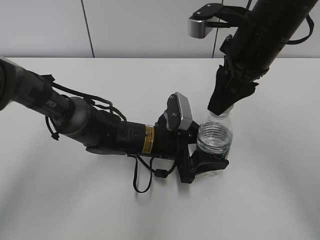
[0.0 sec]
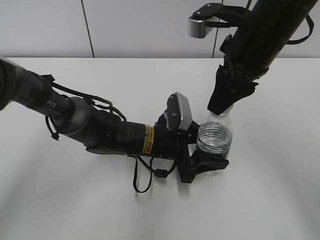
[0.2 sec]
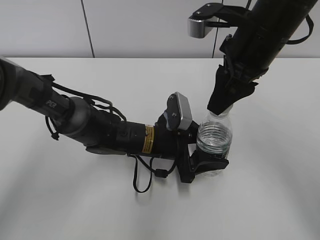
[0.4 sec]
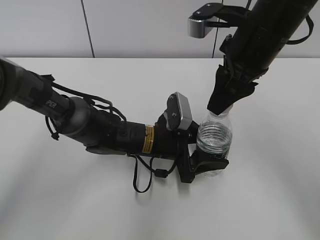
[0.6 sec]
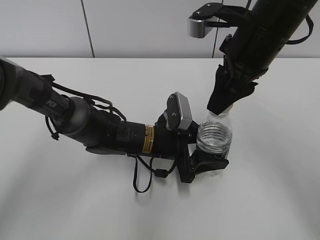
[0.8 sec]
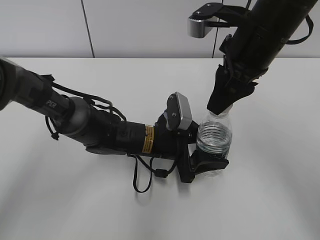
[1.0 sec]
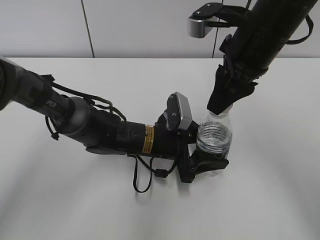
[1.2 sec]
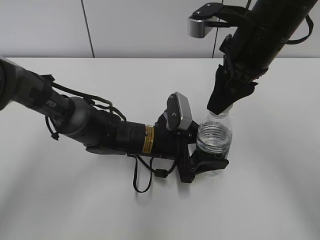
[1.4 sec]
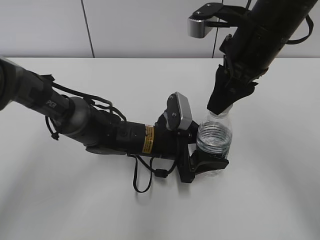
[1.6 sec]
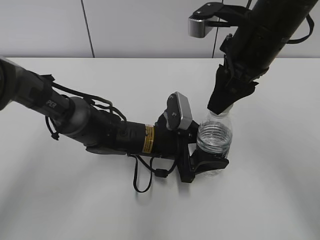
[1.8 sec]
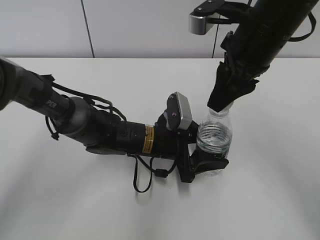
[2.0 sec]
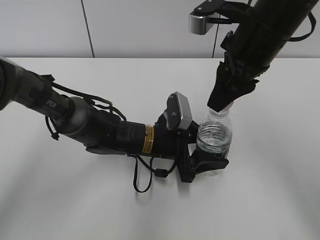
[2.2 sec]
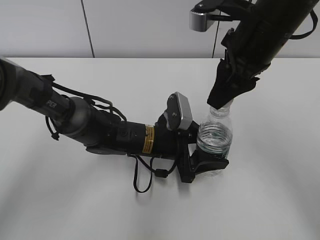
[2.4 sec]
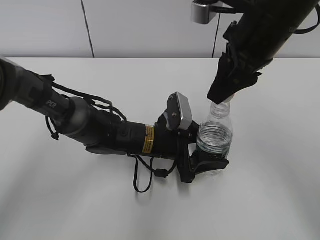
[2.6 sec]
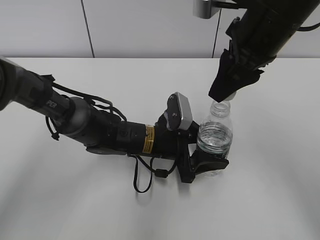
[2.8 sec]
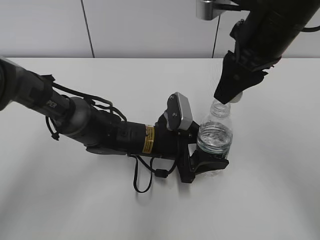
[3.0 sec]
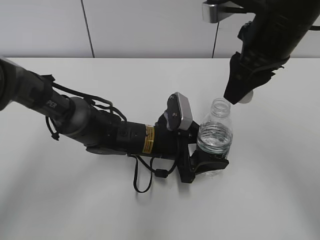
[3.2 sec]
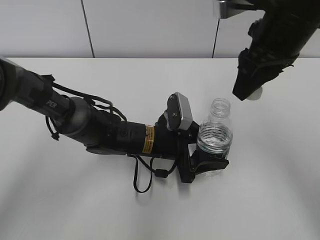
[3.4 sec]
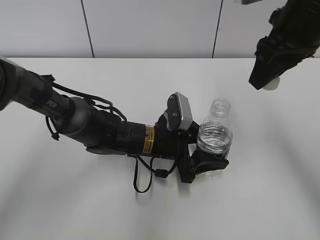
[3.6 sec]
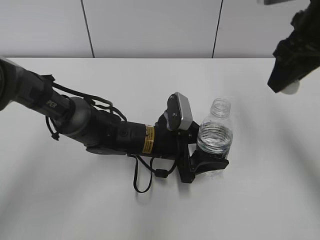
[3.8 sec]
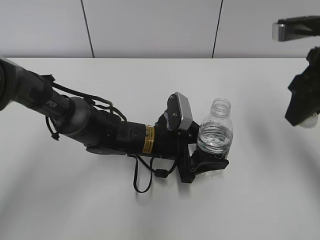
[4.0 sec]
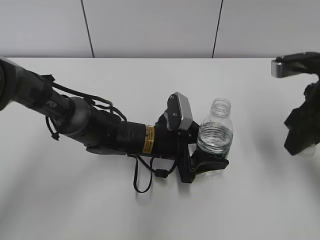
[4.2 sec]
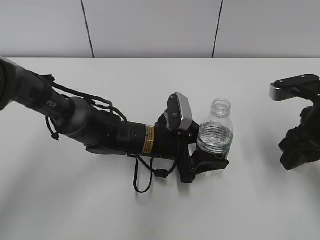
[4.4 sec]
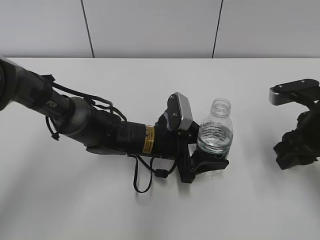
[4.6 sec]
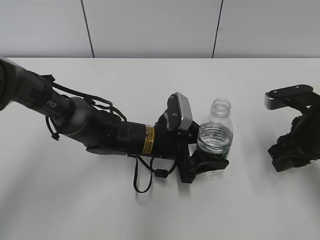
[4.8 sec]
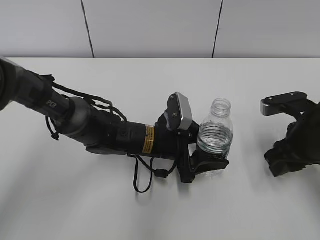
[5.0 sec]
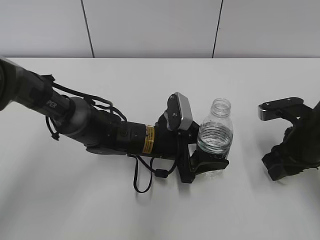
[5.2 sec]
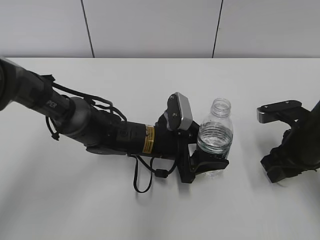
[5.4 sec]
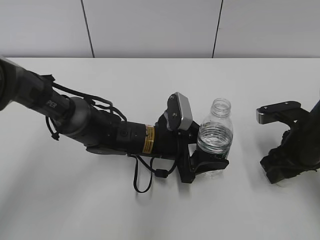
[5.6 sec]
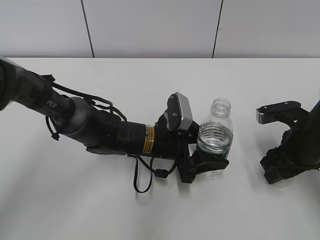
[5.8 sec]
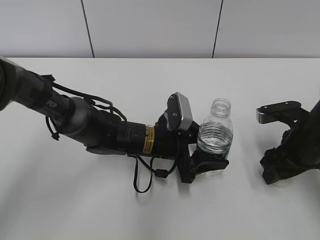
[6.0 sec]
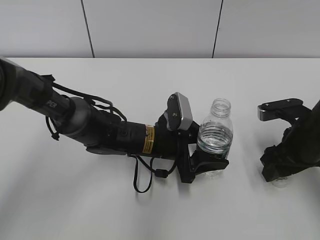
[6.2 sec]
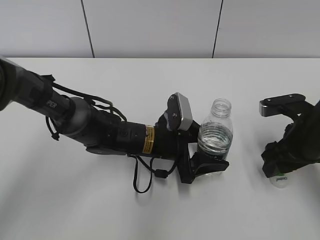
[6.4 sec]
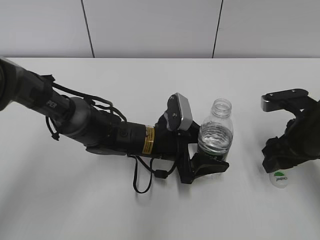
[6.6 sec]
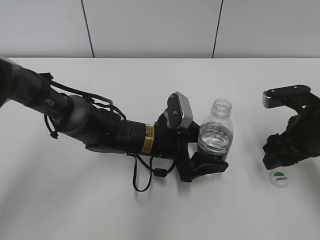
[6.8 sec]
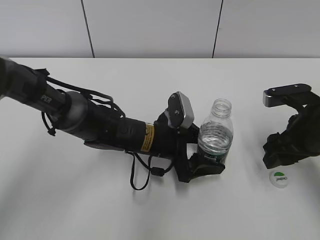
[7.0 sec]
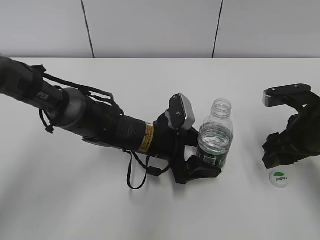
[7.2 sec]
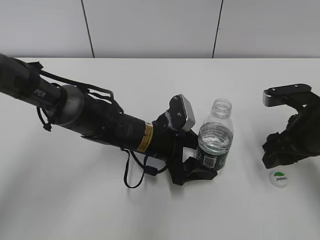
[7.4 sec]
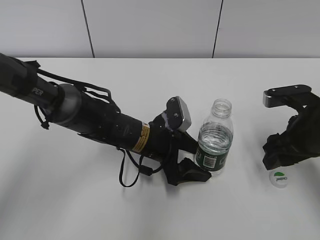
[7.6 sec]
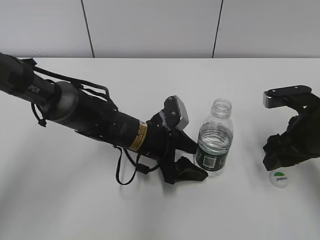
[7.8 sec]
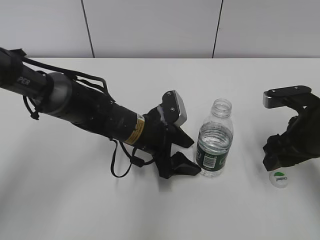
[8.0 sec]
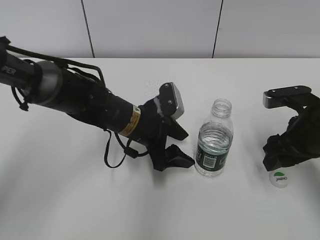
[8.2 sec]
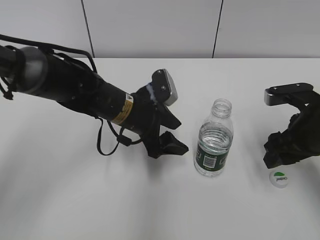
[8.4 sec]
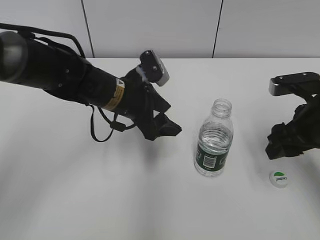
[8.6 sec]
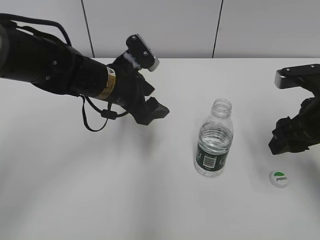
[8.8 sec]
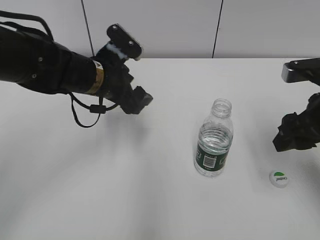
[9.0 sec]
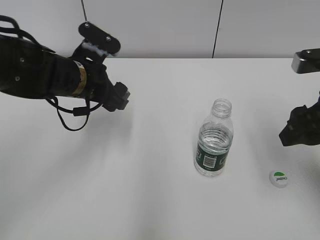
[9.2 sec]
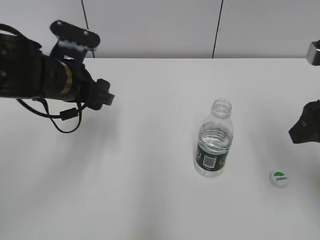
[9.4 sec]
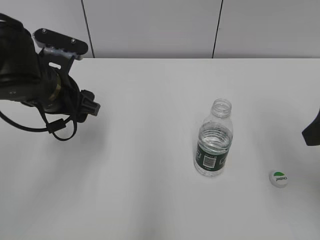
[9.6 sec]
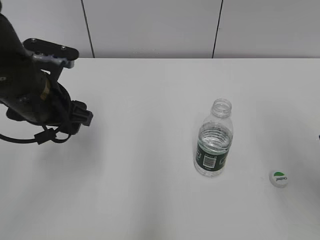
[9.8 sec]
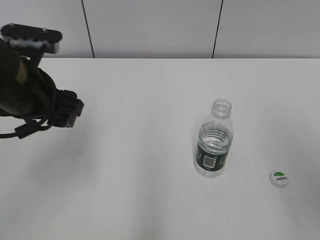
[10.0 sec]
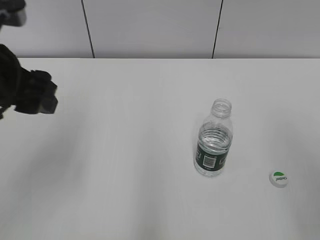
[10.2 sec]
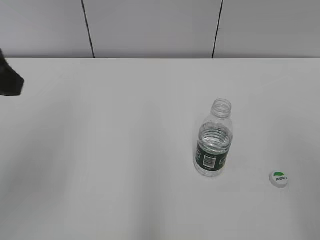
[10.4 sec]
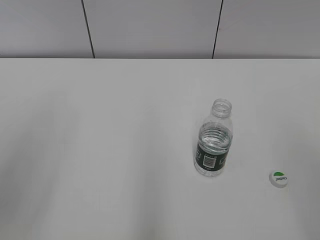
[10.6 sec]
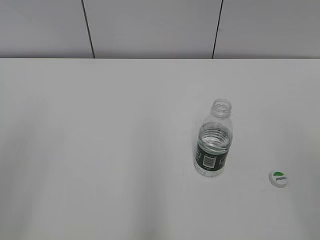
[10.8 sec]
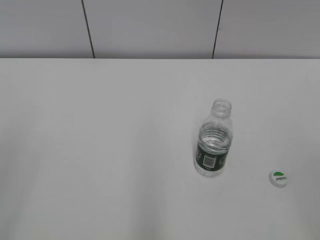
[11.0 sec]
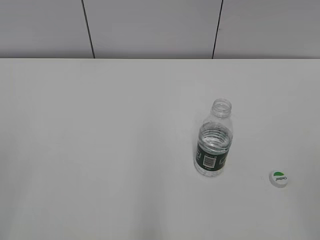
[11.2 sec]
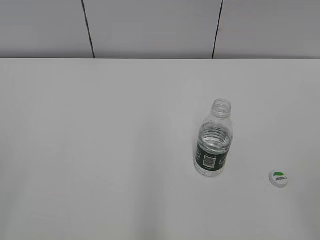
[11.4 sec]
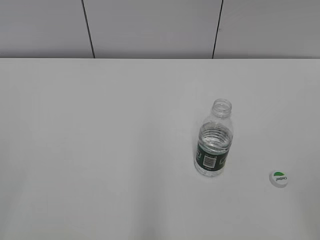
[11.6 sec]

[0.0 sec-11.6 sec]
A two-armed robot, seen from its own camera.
Step, 0.0 sec to 2.6 sec: Twist the bottle cap with the right hand.
Step, 2.8 sec to 6.8 sec: Place the bottle cap on the table with the right hand.
Step, 7.0 sec to 8.0 sec: Place the C'estbon with the left hand.
0.0 sec to 1.4 sec: Both grippers stay about where they are.
1.4 sec to 2.8 sec: The grippers move only a little.
2.8 sec to 4.4 sec: The right gripper is displaced to the right and downward by roughly 15 cm.
4.4 sec to 5.8 sec: The right gripper is displaced downward by about 10 cm, and opens its fingers.
5.8 sec to 7.2 sec: The left gripper opens.
7.2 sec to 8.8 sec: The left gripper heads upward and to the left, covering approximately 10 cm.
8.8 sec to 10.2 sec: The right gripper shifts some 20 cm backward and upward; the left gripper goes approximately 20 cm upward, backward and to the left.
10.2 sec to 11.6 sec: The left gripper goes some 25 cm backward and to the left.

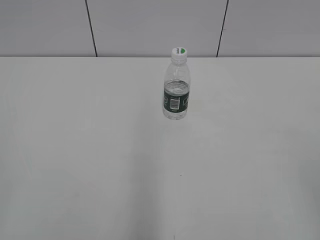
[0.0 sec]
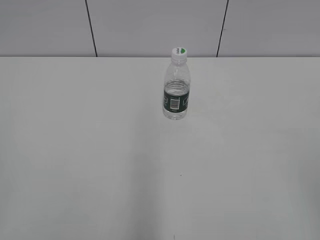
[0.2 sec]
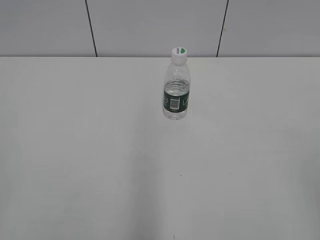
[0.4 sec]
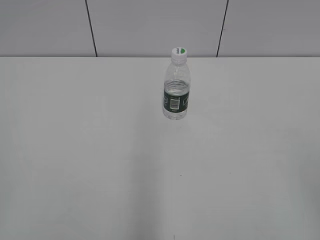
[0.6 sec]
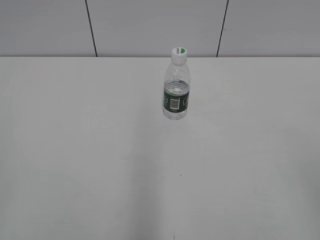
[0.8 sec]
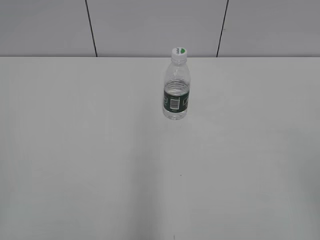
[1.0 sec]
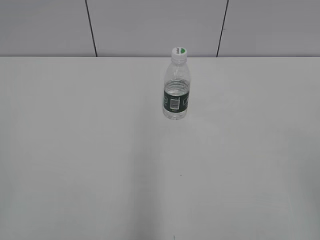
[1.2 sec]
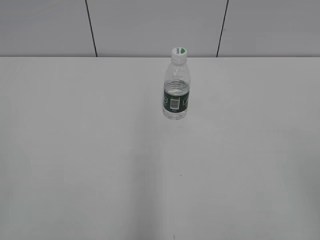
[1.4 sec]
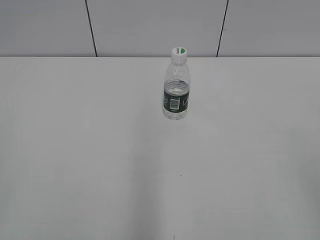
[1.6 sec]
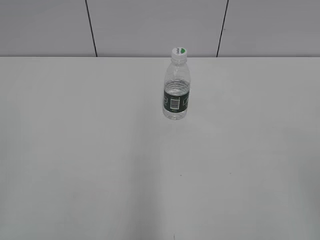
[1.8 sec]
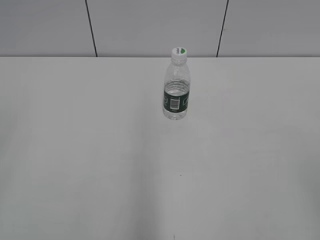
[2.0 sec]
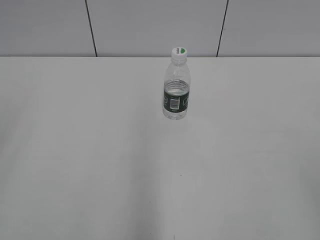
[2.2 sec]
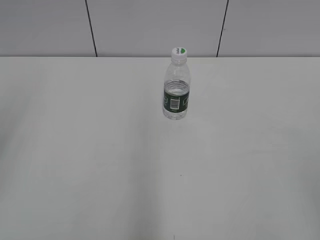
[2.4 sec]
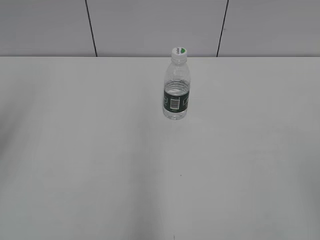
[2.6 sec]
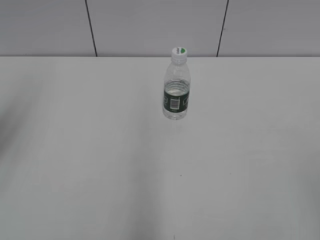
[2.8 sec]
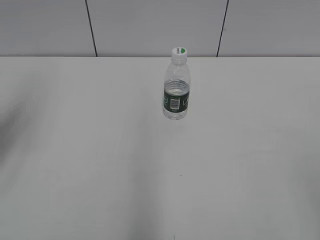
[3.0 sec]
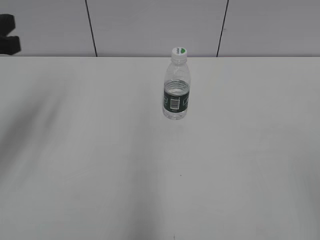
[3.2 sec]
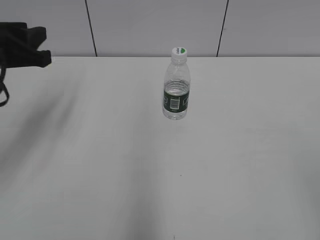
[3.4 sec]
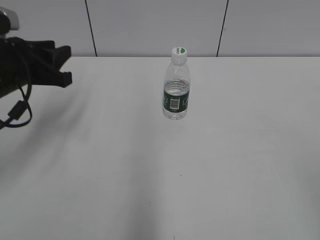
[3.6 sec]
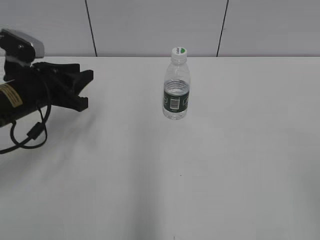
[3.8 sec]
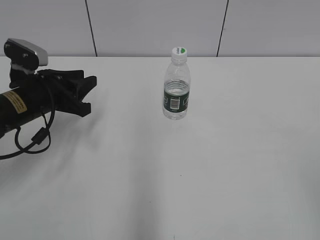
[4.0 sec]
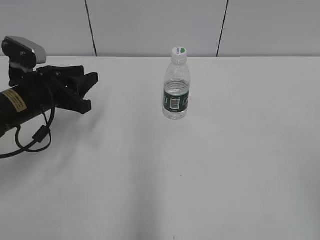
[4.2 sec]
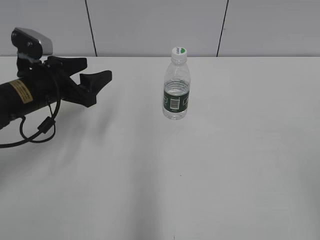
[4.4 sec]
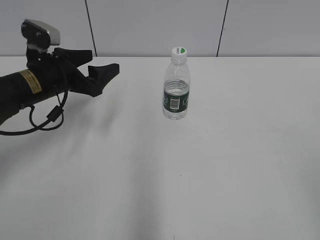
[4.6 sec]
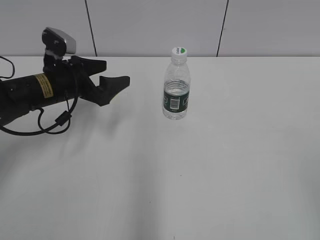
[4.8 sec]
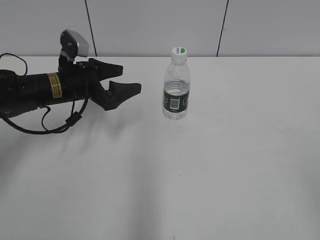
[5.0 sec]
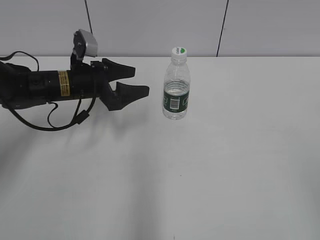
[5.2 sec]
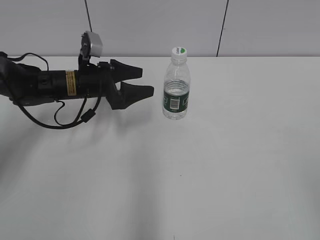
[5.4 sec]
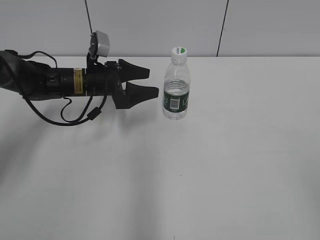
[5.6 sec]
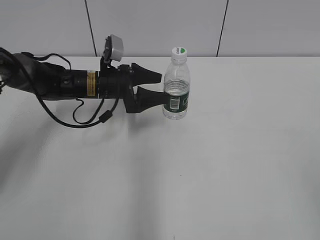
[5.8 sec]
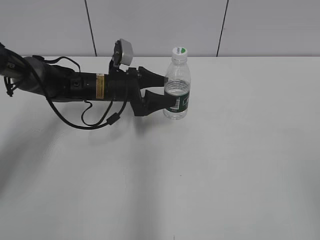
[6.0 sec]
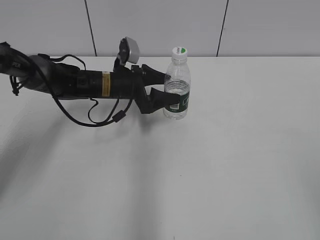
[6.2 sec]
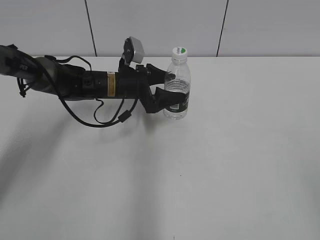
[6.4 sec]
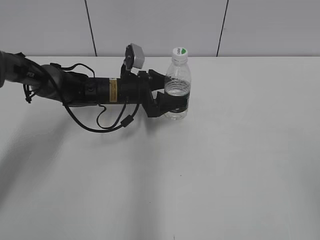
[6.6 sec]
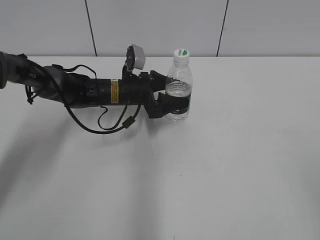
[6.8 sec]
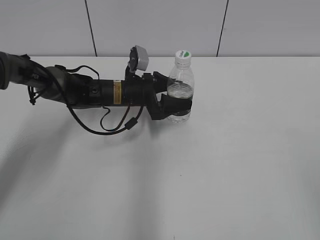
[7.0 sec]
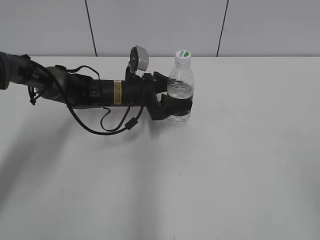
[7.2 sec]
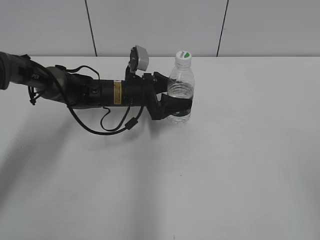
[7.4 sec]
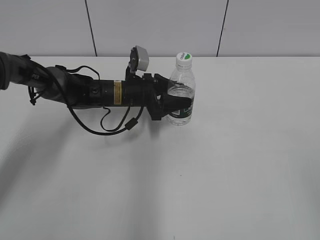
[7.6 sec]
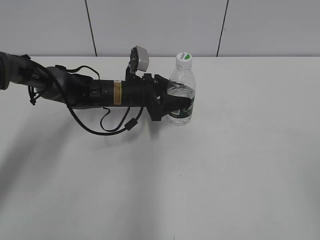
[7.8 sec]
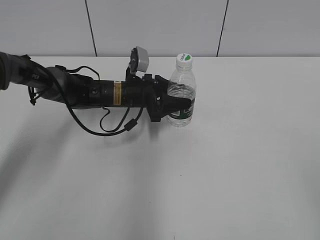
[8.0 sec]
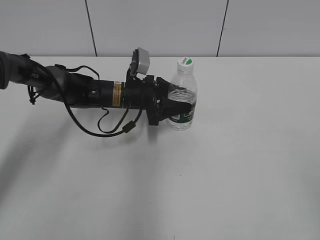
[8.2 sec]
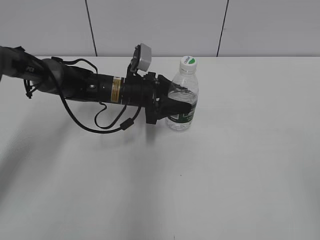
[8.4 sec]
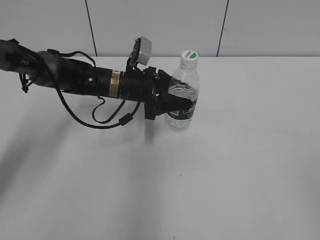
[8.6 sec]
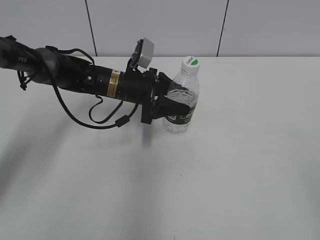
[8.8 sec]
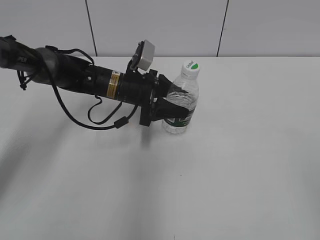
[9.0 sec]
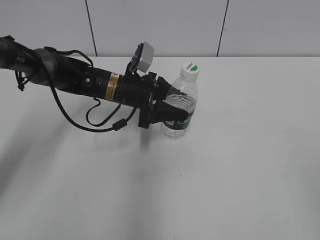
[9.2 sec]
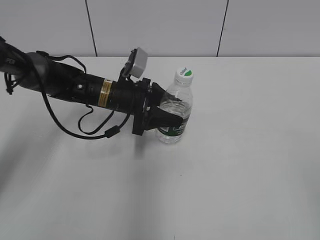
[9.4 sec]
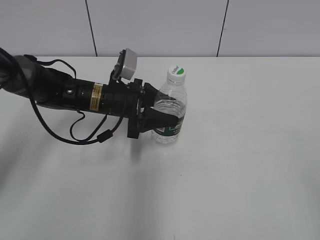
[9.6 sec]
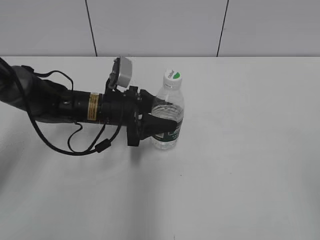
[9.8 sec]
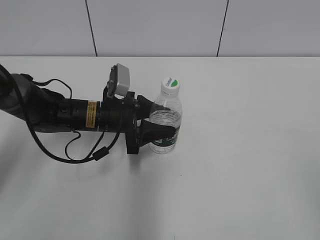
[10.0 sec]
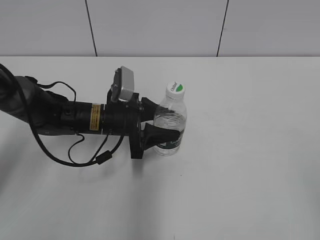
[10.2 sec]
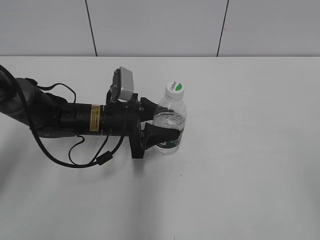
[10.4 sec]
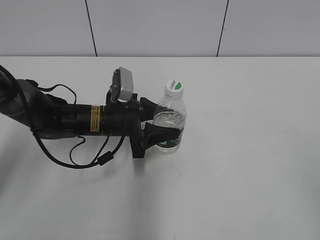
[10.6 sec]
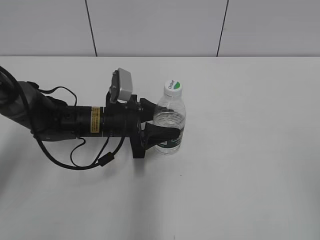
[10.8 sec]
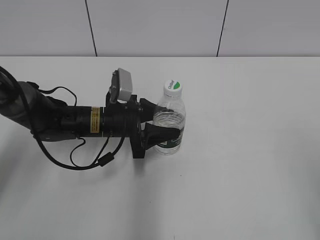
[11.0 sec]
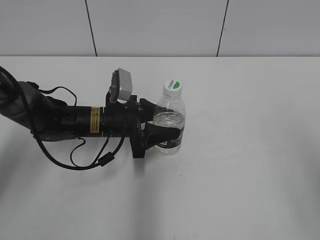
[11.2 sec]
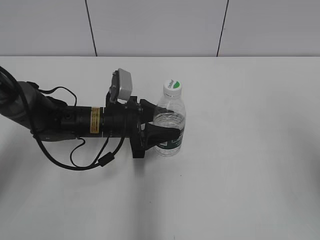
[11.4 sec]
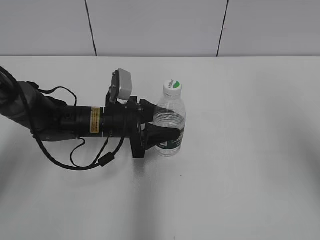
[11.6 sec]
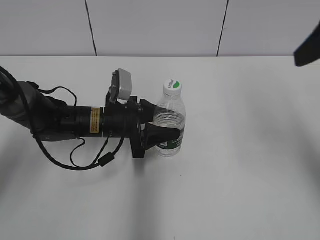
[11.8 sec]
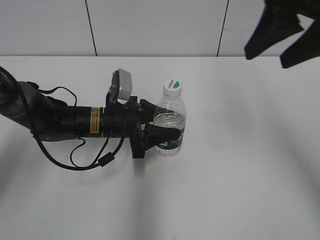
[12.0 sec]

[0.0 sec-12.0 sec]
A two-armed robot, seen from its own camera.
Step, 0.0 sec to 7.6 sec: Grasp the bottle and move it to the center of the table with the left gripper.
Step, 7.8 sec to 11.6 sec: Lift the bottle and move it to the center of the table with the left gripper.
1.6 sec to 3.0 sec: The left gripper heads forward, covering approximately 25 cm.
3.0 sec to 4.4 sec: The left gripper is displaced downward, forward and to the right by some 20 cm, and opens up.
4.4 sec to 6.0 sec: The left gripper shifts roughly 15 cm forward, to the right and downward.
6.0 sec to 9.0 sec: There are only small adjustments of the grippers.
9.0 sec to 10.4 sec: The left gripper goes about 5 cm backward.
10.4 sec to 12.0 sec: The right gripper heads forward and to the left, covering about 30 cm.
